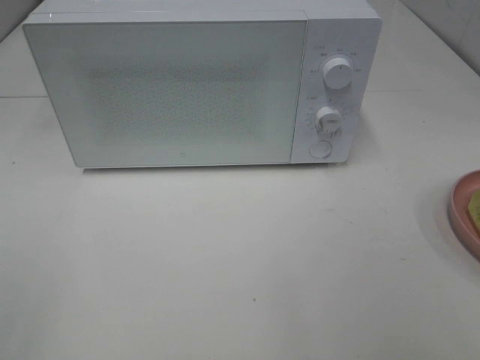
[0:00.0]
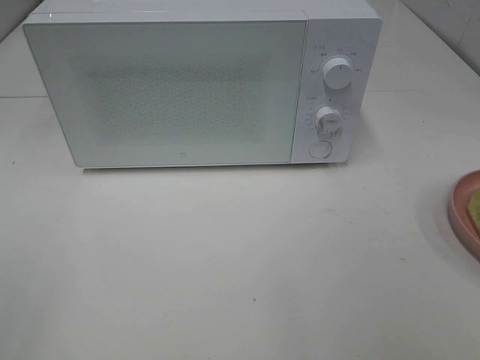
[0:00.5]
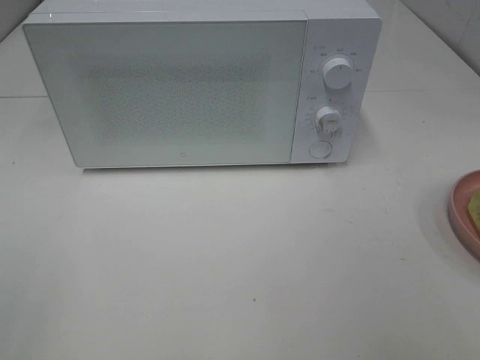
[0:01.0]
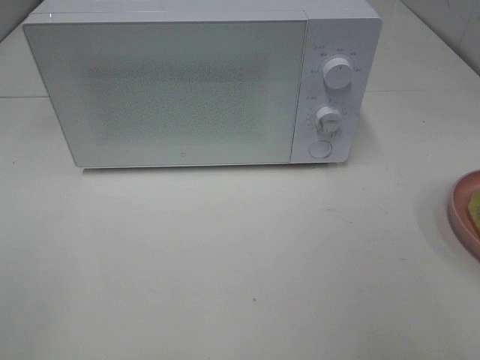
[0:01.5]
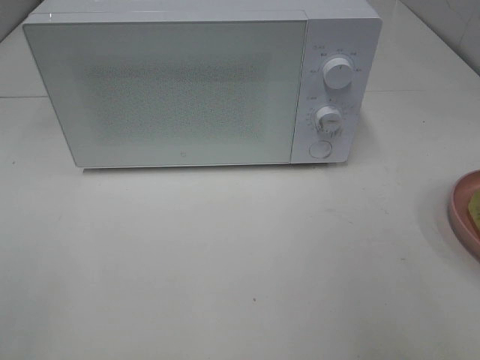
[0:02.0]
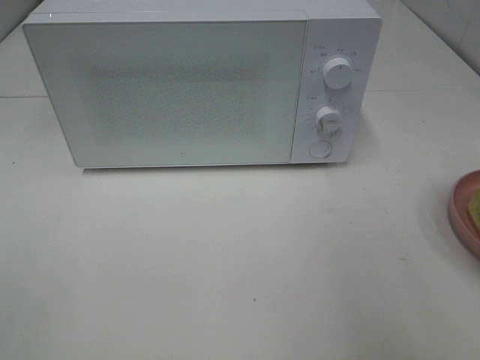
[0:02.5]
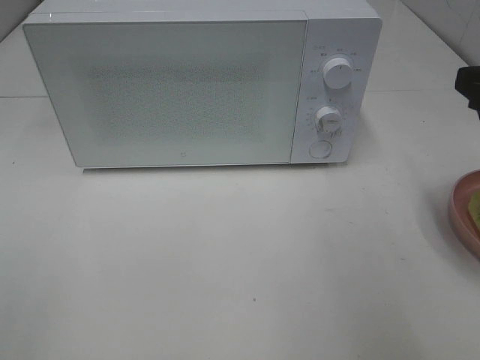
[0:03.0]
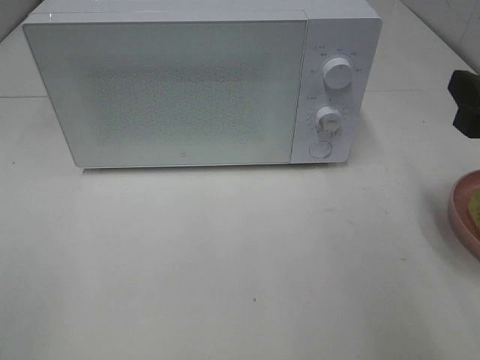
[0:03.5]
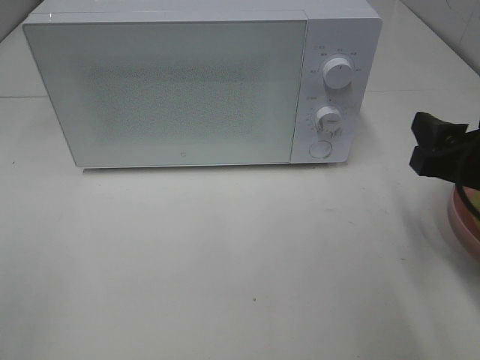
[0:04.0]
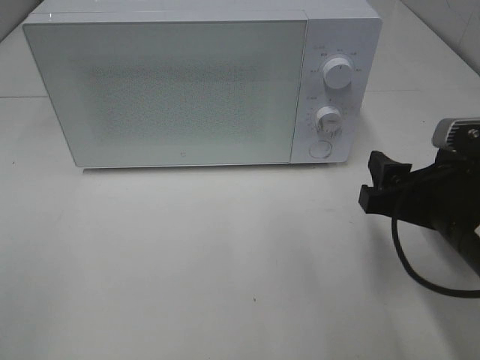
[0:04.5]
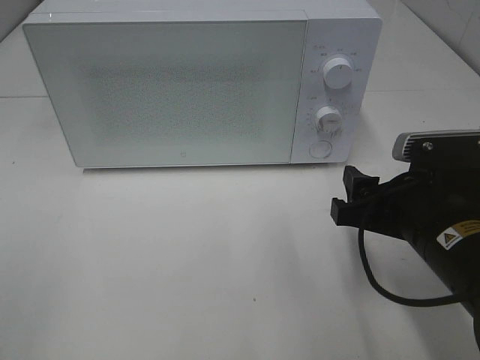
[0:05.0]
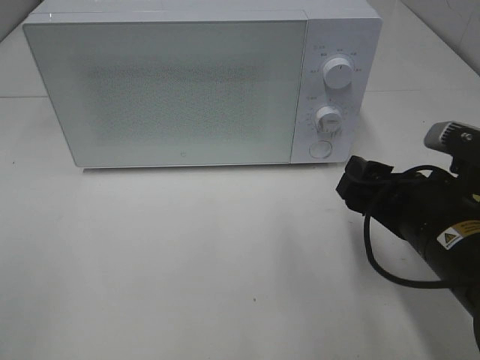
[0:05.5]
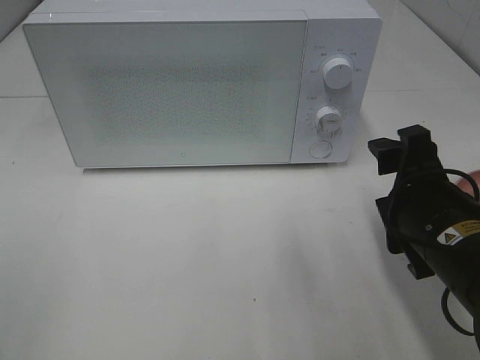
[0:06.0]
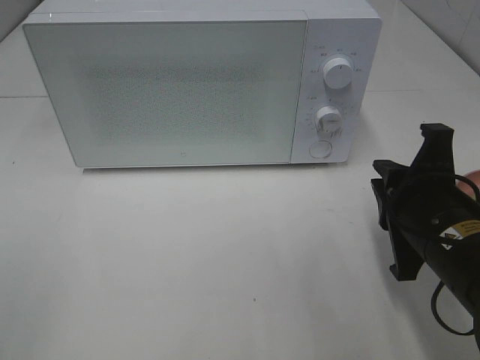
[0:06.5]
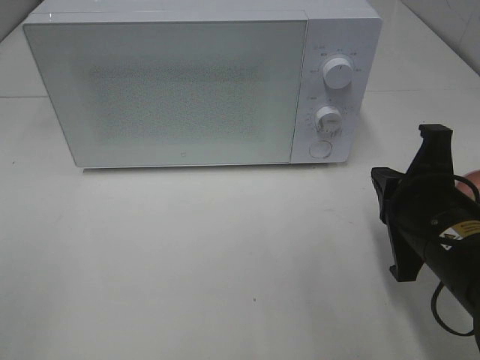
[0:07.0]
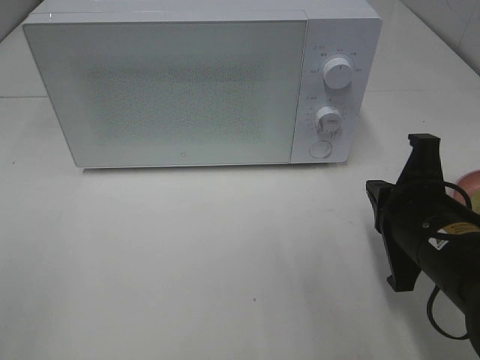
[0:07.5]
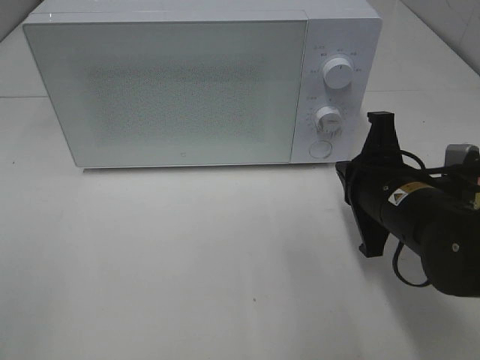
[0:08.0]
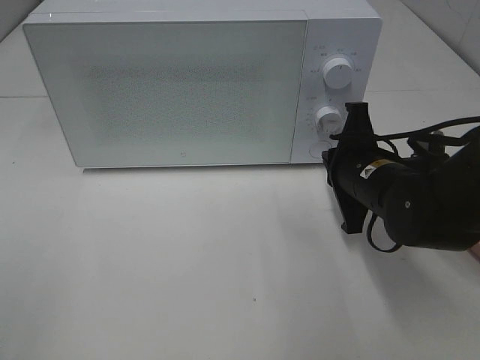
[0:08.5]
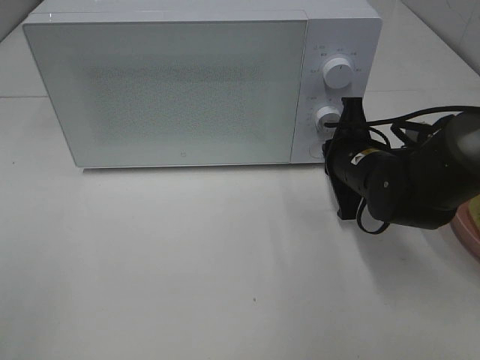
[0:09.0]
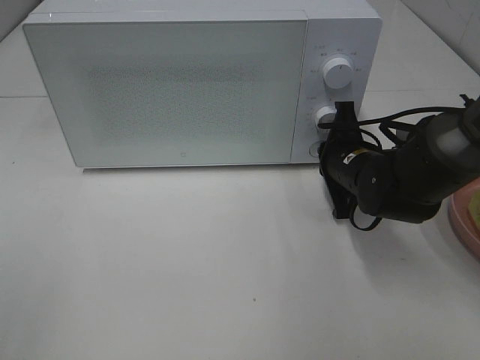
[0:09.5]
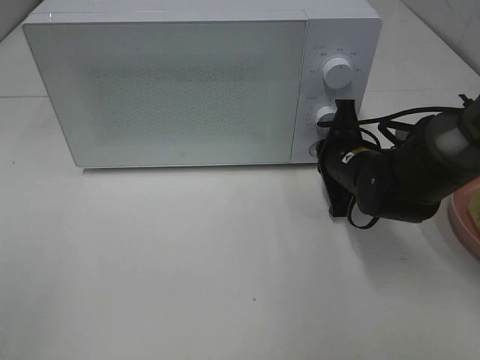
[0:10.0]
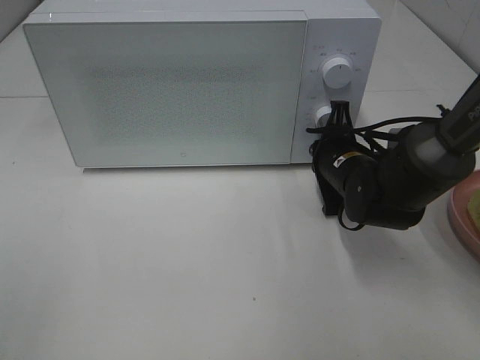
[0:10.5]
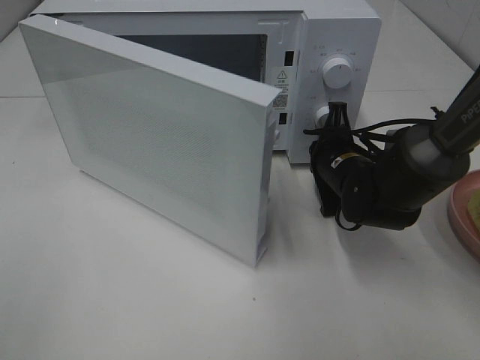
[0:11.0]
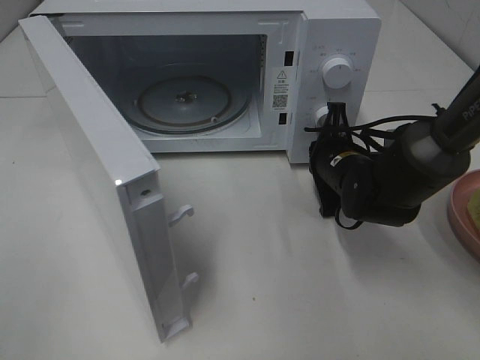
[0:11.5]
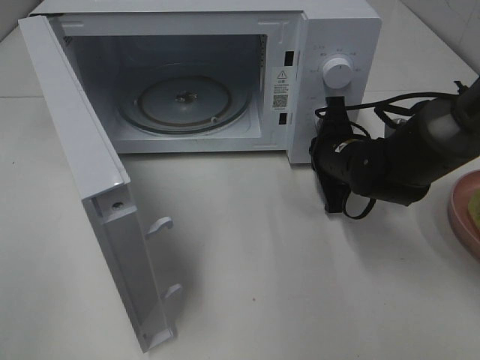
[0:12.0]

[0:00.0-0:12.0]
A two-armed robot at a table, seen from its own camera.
Task of the whole recording: Heat Sandwich.
0:02.0 to 0:04.0: The right gripper heads downward and forward, covering some 15 cm.
0:04.0 to 0:06.0: The right gripper is displaced to the left by approximately 5 cm.
0:06.0 to 0:08.0: The right gripper is displaced forward by roughly 5 cm, and closes up.
0:08.0 to 0:10.0: The right gripper goes some 10 cm forward.

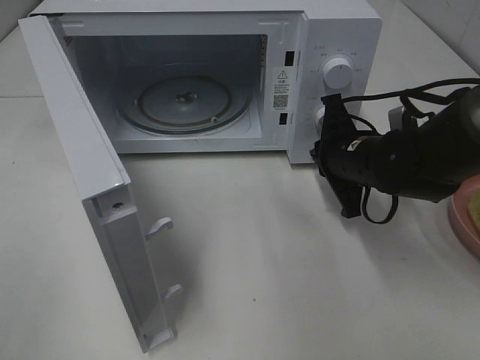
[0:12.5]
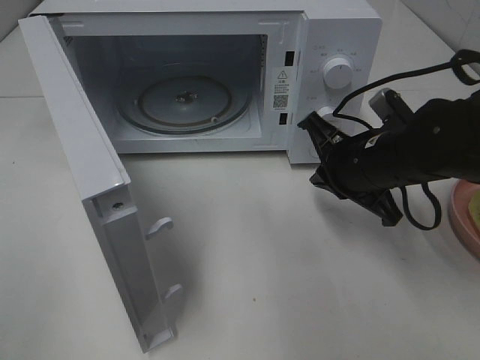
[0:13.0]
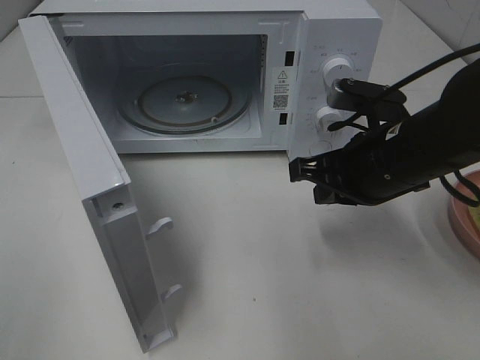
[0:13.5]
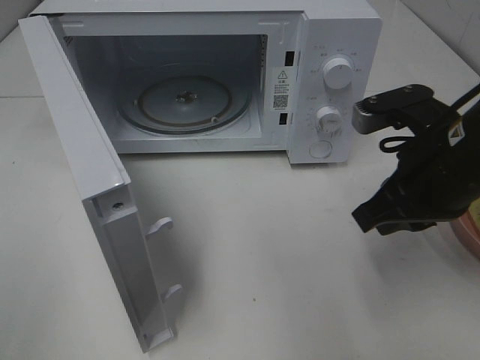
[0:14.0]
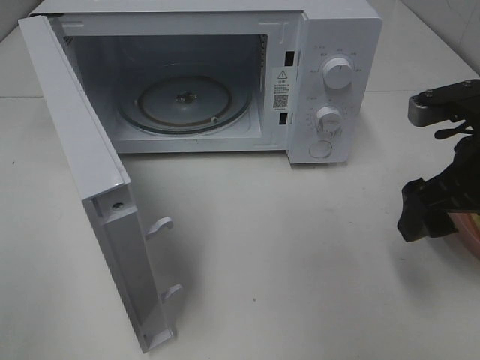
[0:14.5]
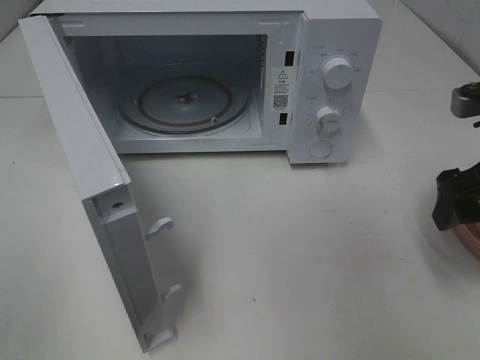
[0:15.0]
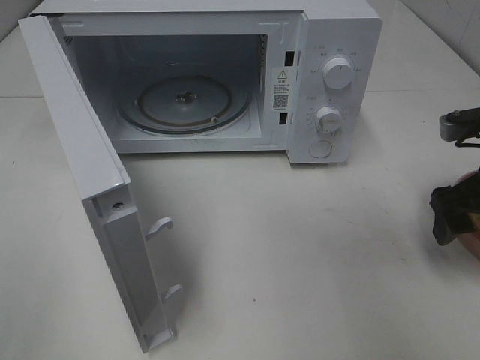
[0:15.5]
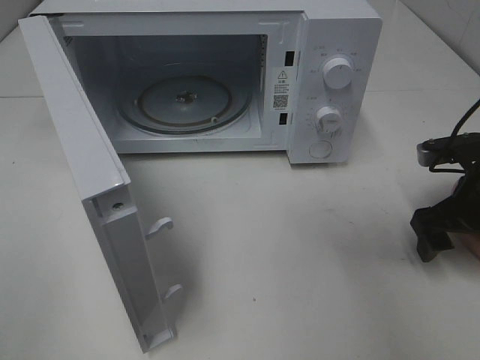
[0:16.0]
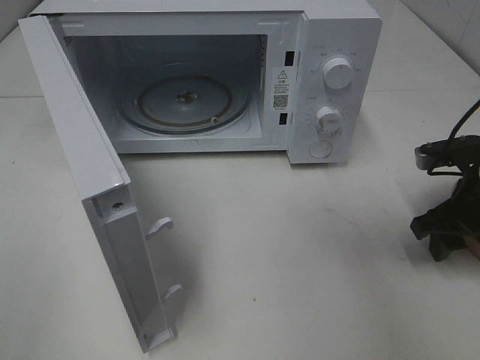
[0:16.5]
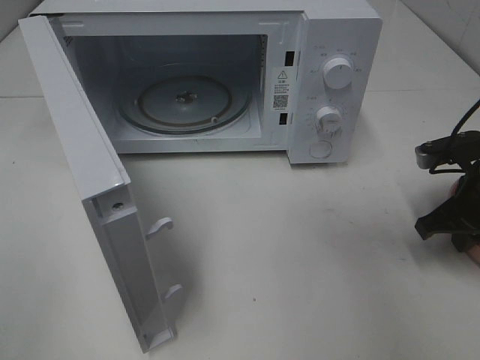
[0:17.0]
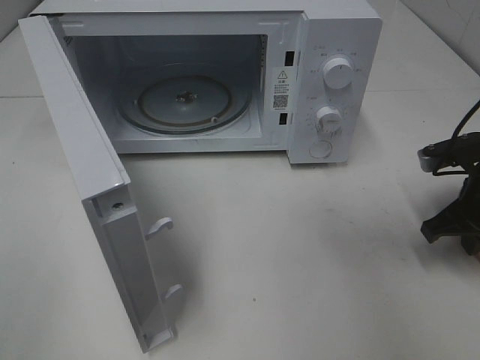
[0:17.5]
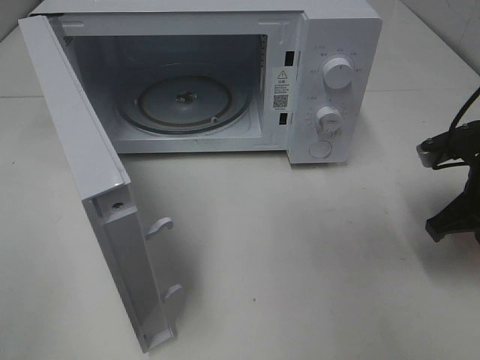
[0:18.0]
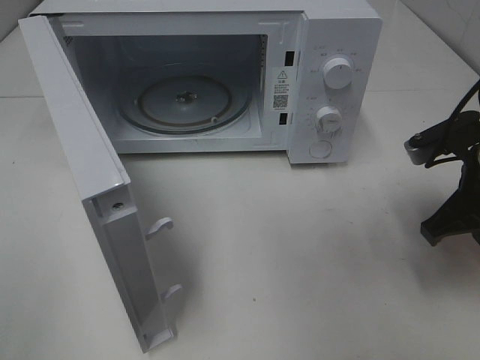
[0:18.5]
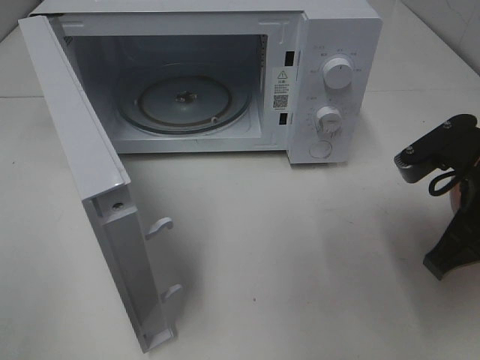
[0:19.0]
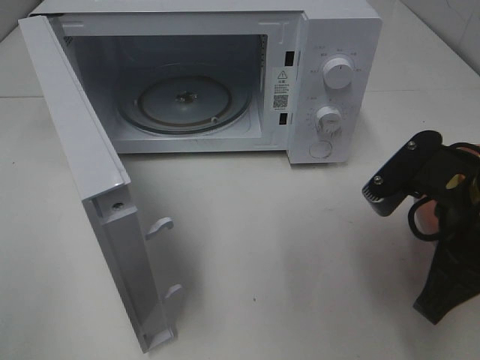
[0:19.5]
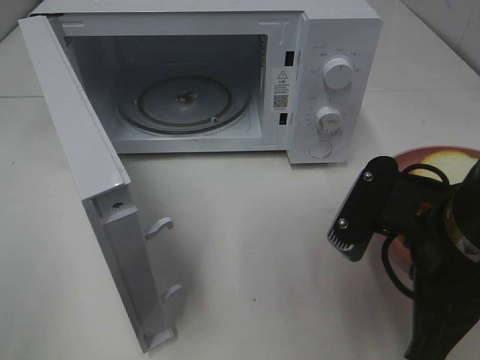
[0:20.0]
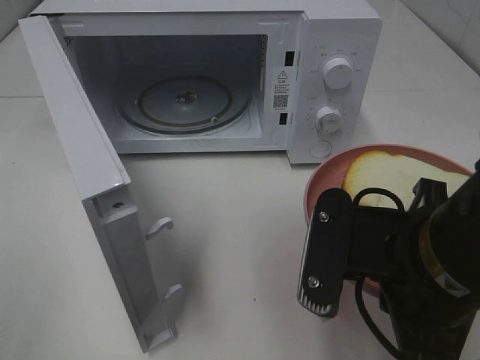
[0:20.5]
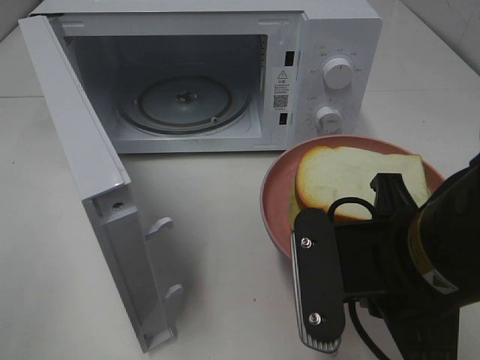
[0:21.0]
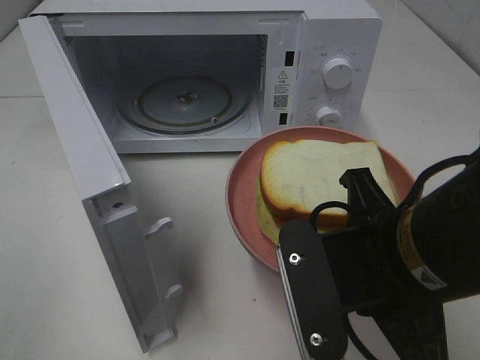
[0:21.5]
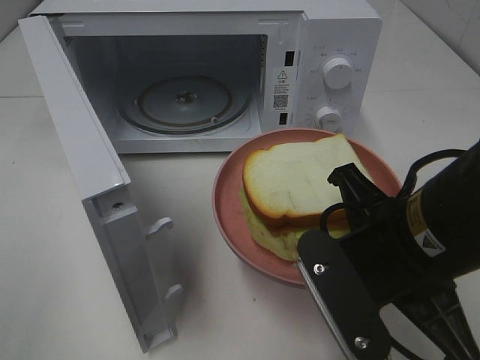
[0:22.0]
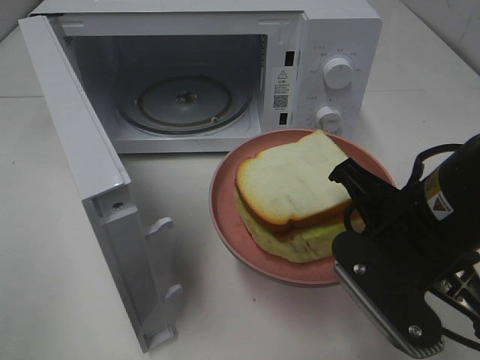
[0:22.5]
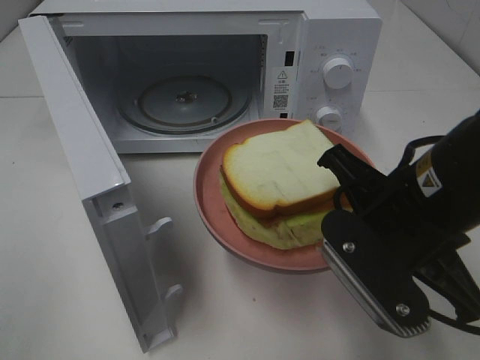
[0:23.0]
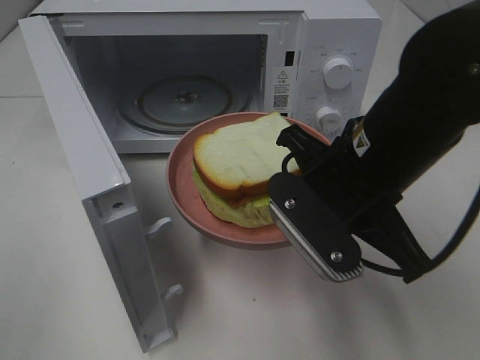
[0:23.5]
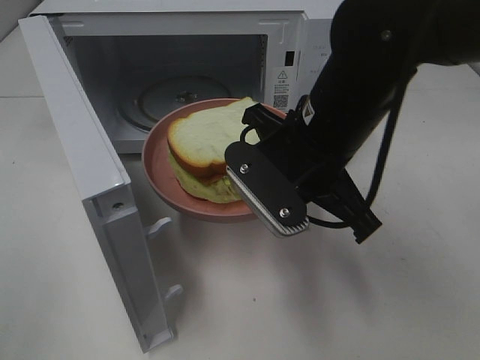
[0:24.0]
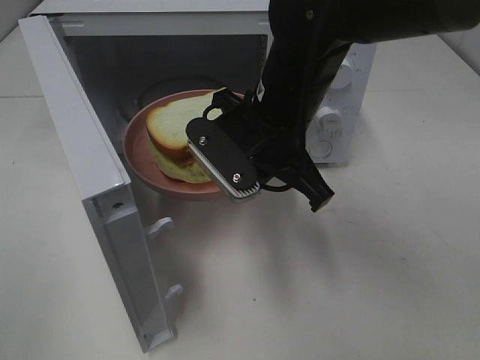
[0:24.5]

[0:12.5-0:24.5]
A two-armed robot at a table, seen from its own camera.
Task of the whole recording: Heat Sandwich.
Step, 0:12.5 to 0:17.0: Right hand: grab the plate with the sandwich.
0:12.5 to 0:14.5: The right gripper moves upward, backward and to the right, roughly 15 cm, and opens.
0:14.5 to 0:16.5: The right gripper heads downward and to the right, covering about 10 cm.
0:16.5 to 0:18.5: The right gripper travels upward by about 5 cm, and closes.
0:18.5 to 0:20.5: The right gripper goes approximately 15 cm backward and to the left.
0:22.5 to 0:24.5: The right gripper is displaced forward and to the left by some 15 cm.

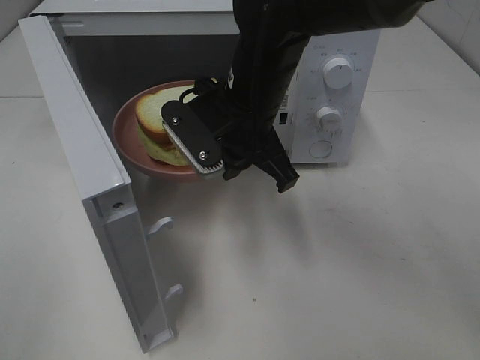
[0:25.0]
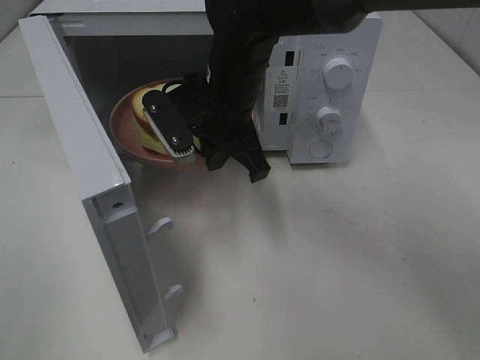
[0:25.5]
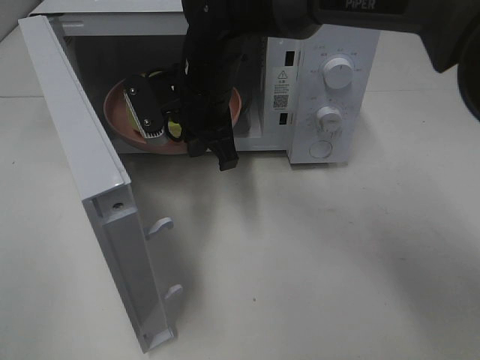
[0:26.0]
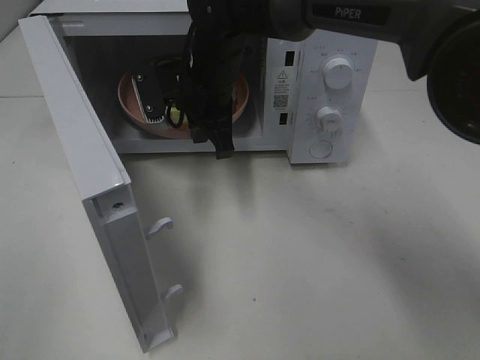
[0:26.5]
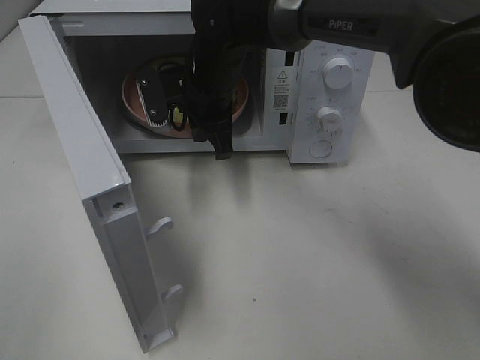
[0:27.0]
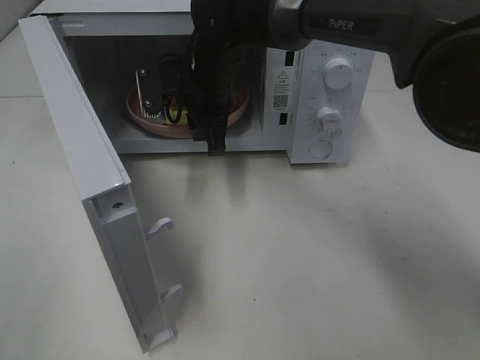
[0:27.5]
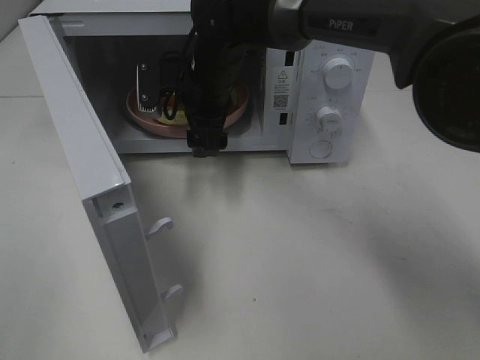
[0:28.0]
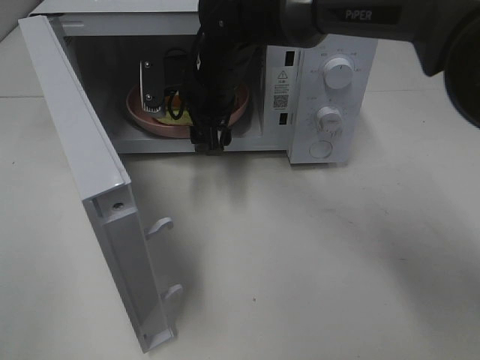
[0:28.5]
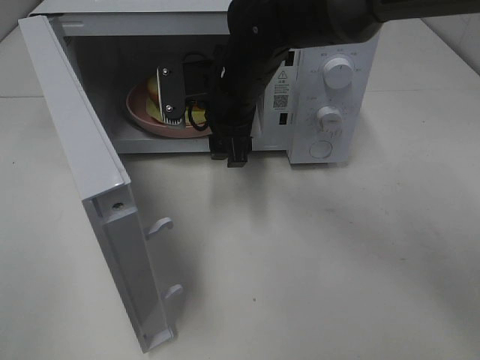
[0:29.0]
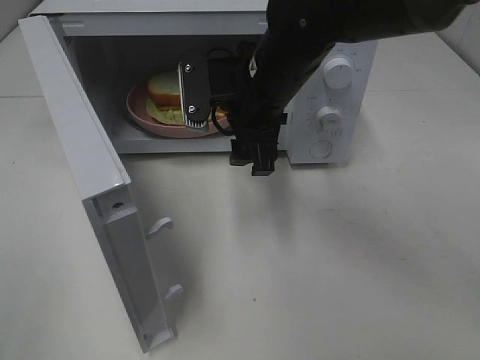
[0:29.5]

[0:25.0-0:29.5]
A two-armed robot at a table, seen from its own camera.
Task of the whole recording: Heat Sandwich.
Step, 0:25.0 to 0:29.0: Right hand: place the plate in the microwave.
0:25.0 to 0:27.0: The right gripper travels forward by about 10 cm.
0:27.0 to 0:29.5: The right gripper travels backward and to the right by some 10 cm, and opens.
